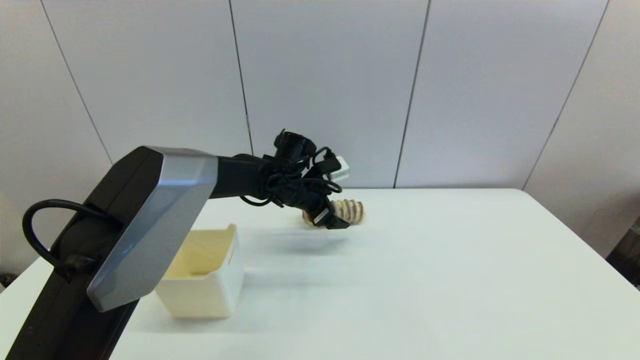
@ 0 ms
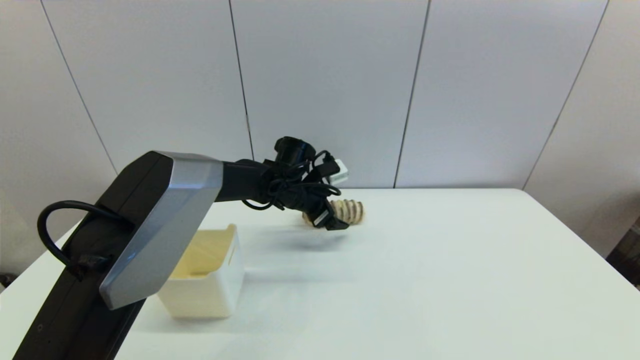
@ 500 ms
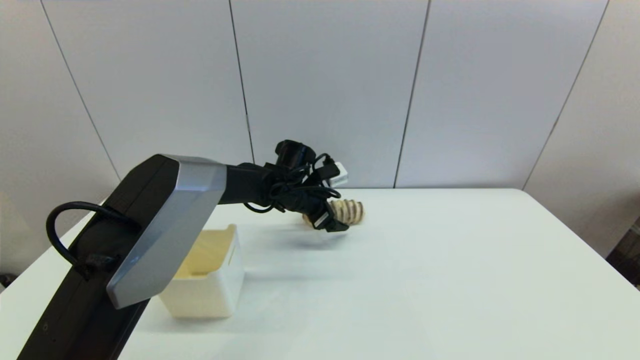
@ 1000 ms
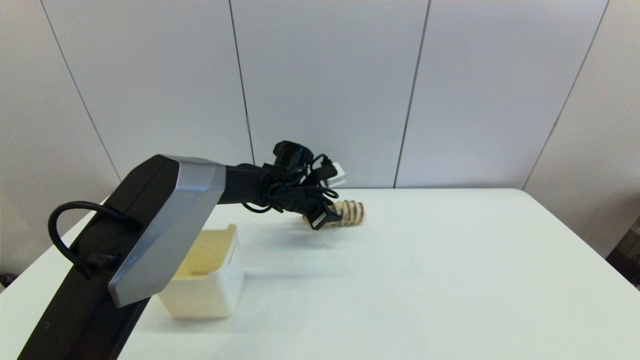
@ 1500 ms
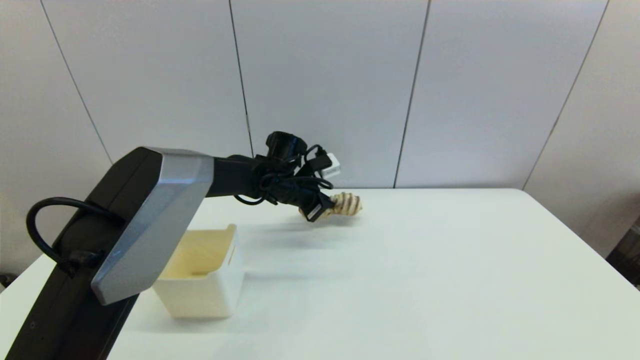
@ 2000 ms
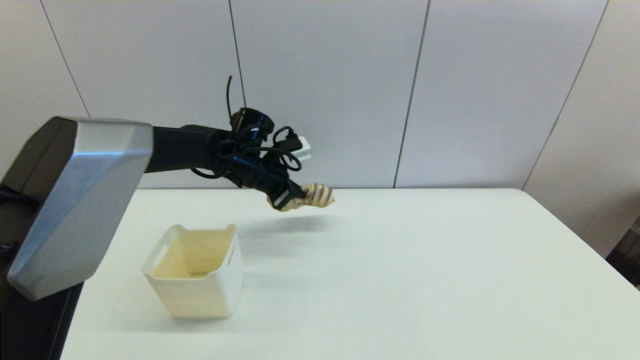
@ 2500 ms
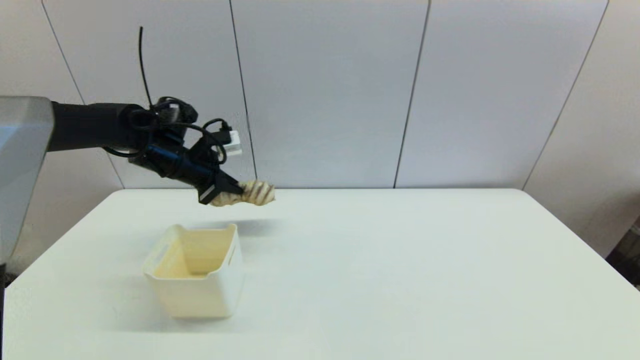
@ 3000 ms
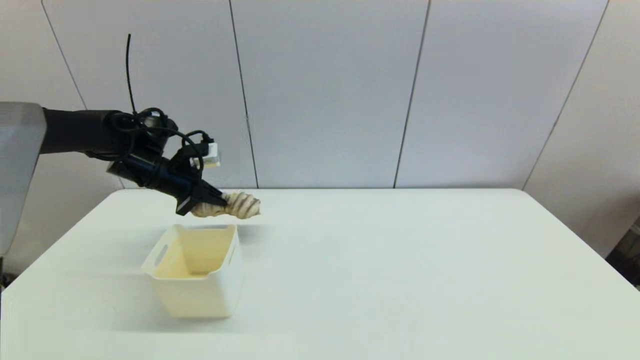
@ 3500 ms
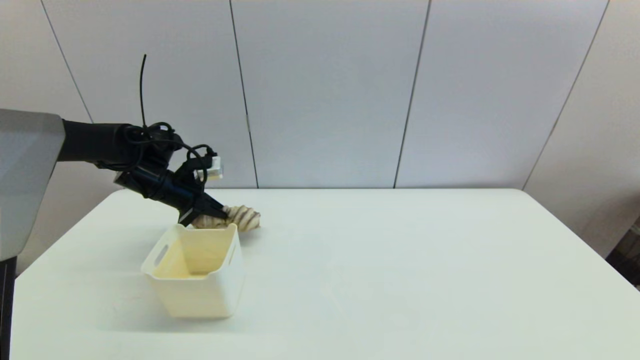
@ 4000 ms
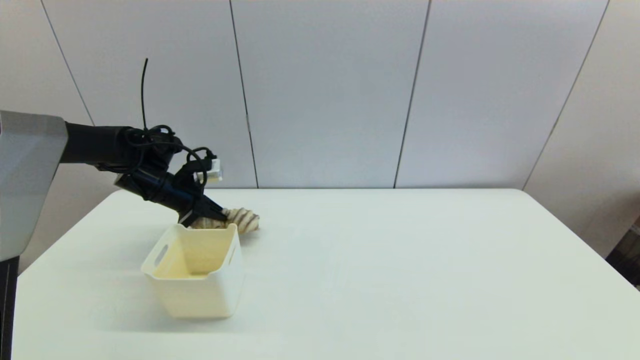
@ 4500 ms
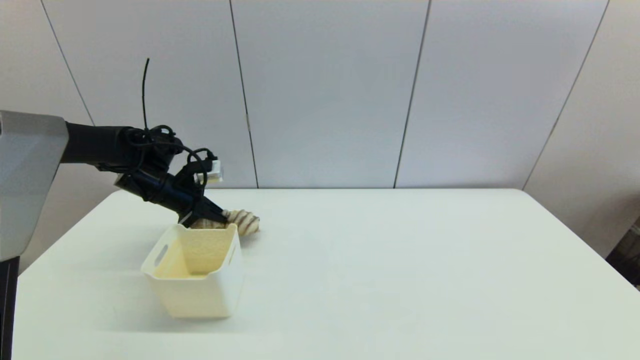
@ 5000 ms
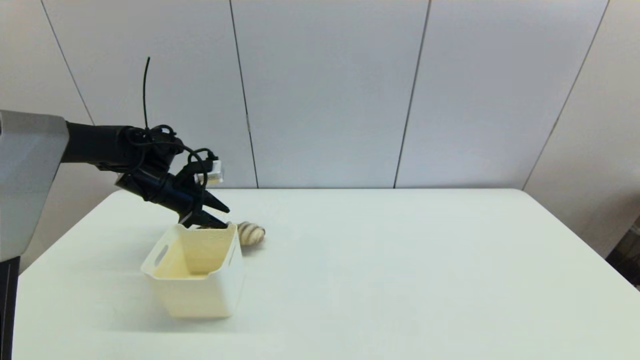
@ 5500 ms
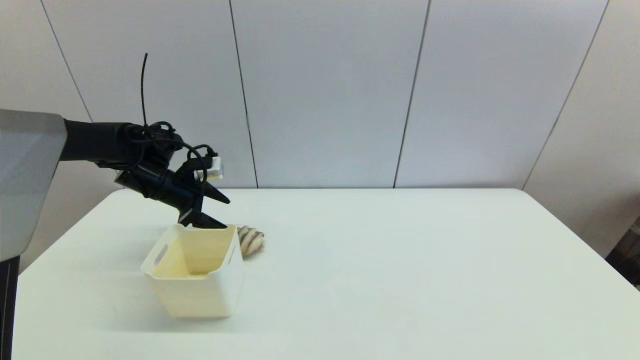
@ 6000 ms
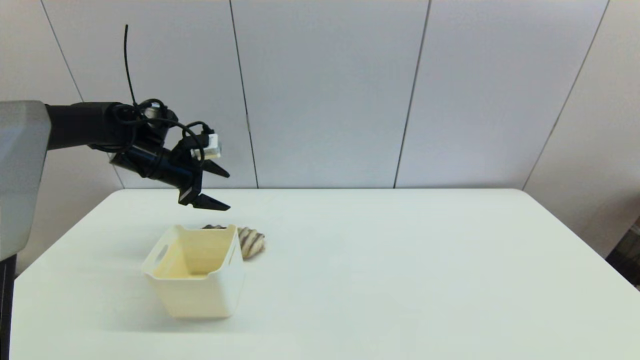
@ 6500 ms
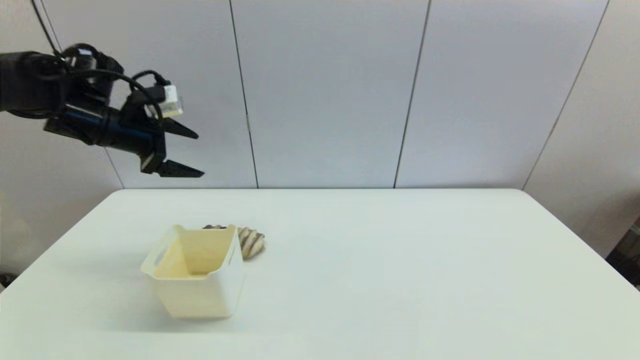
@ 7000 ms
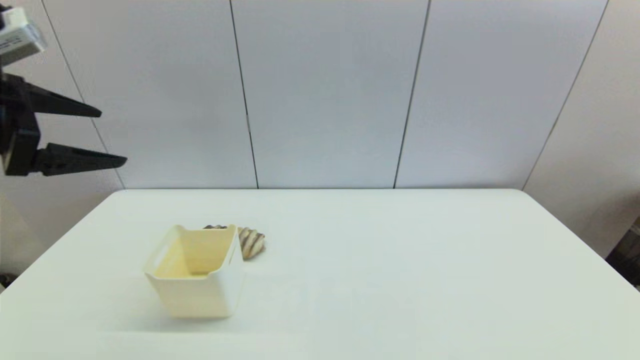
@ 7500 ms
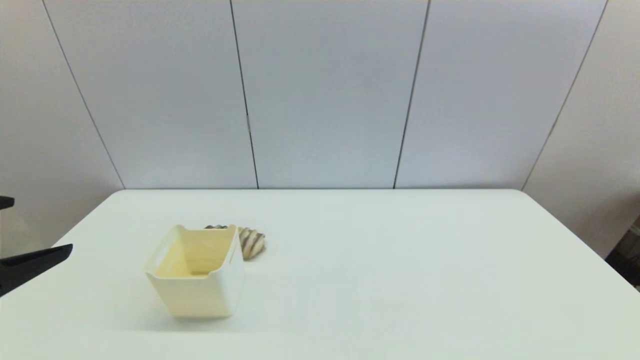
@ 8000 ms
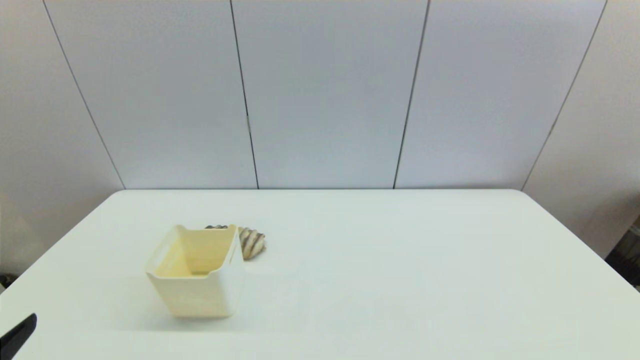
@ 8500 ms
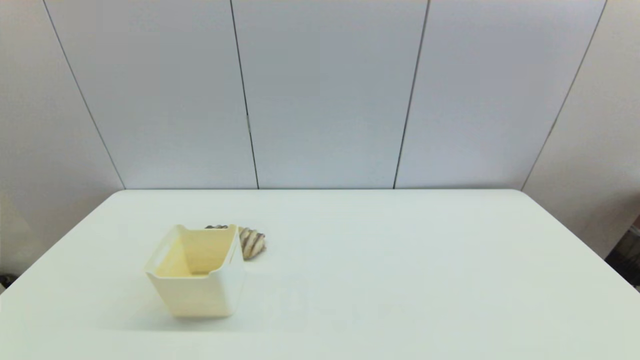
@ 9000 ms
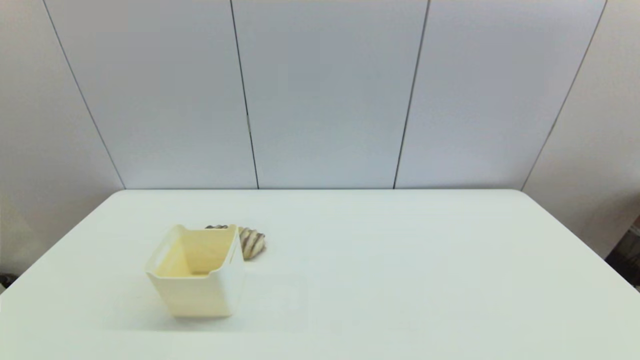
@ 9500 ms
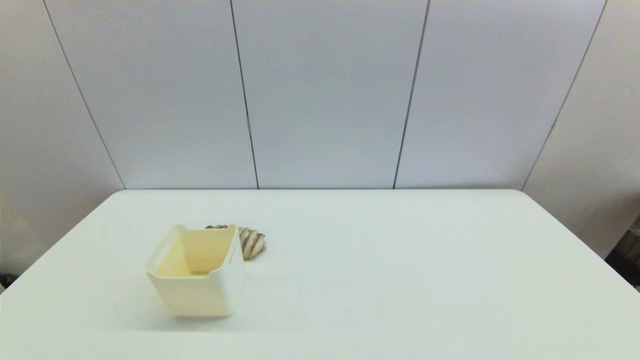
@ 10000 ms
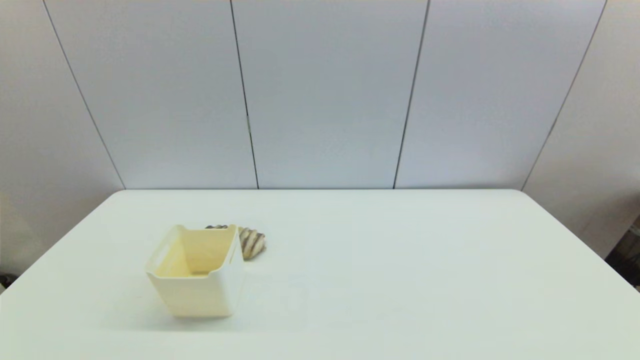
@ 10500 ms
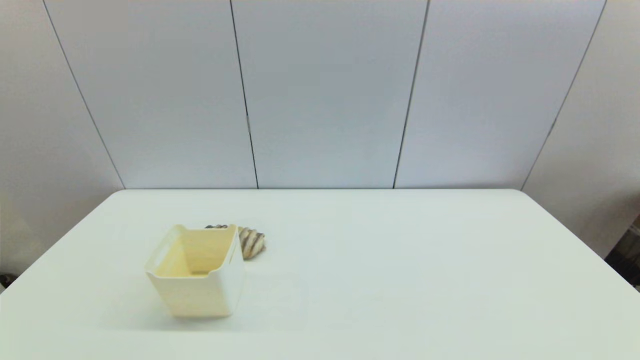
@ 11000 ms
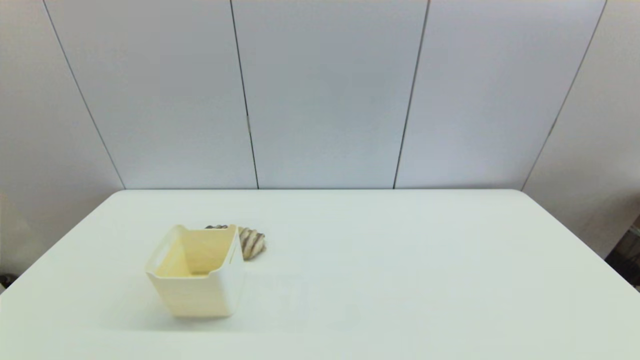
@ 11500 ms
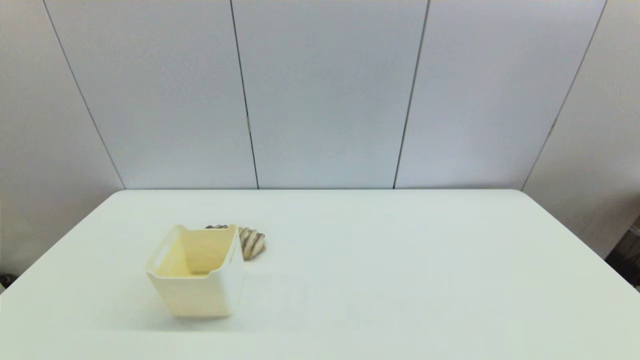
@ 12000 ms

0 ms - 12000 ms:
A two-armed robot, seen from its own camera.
Step, 2000 ms - 5500 ms: Place the long bread on the table with left gripper.
0 ms - 2000 ms: The left gripper closes its fingers.
2000 ms - 4000 ms: The left gripper moves to the left, about 20 cm.
4000 ms - 6000 ms: The left gripper opens.
6000 ms - 8000 ms: The left gripper moves backward, some 35 cm.
8000 ms - 10000 ms: The left gripper moves downward and backward, roughly 20 cm.
